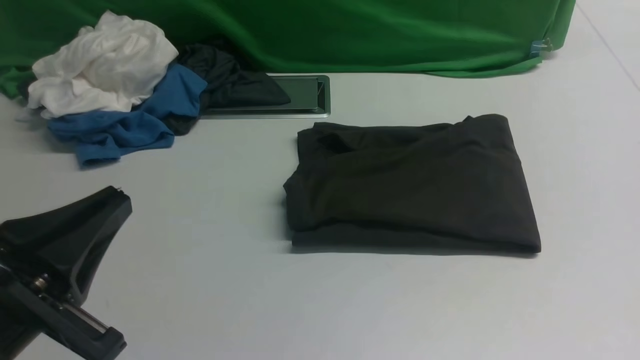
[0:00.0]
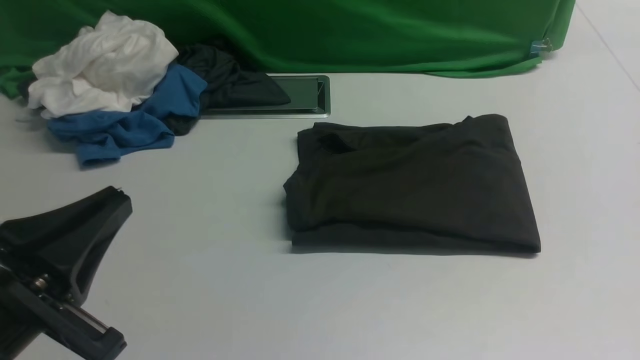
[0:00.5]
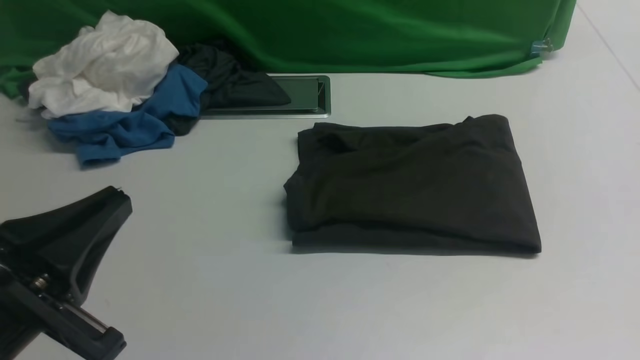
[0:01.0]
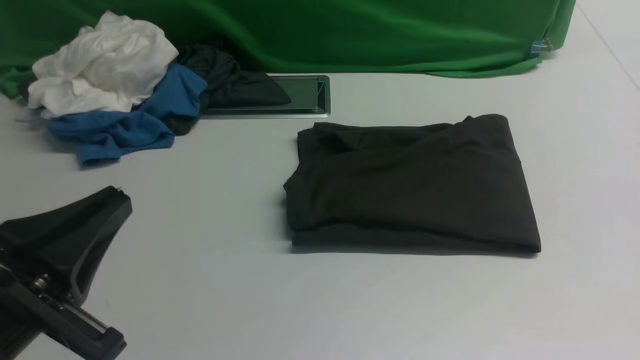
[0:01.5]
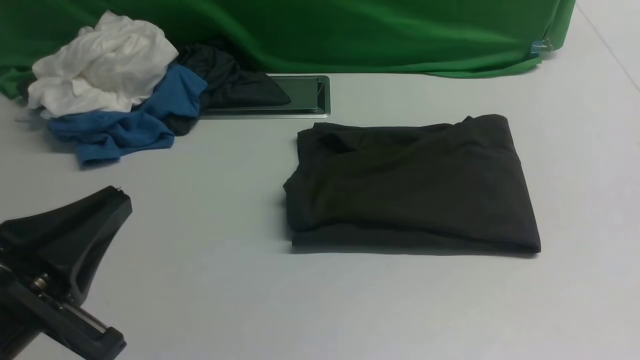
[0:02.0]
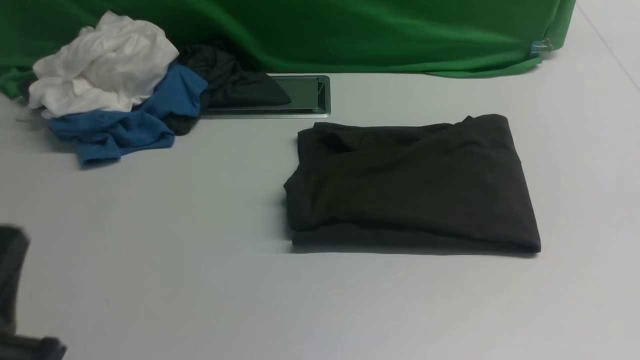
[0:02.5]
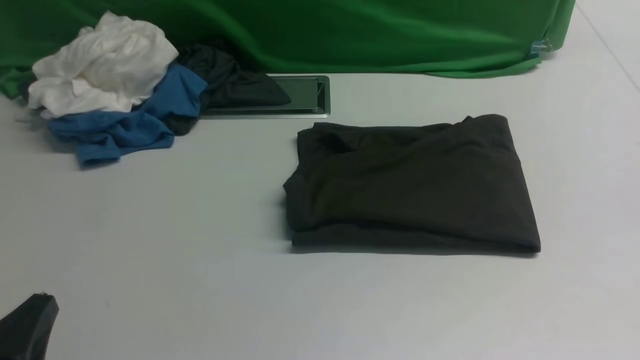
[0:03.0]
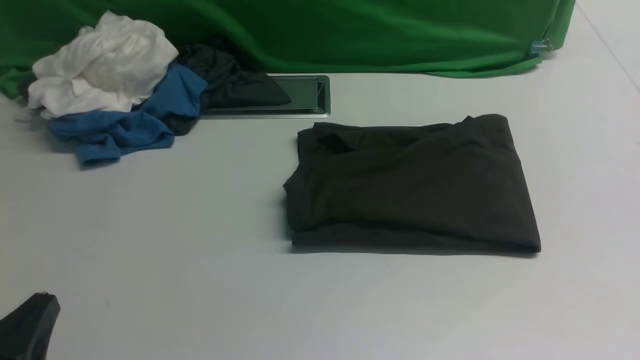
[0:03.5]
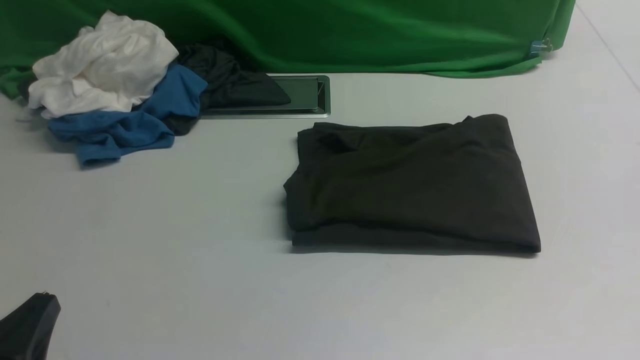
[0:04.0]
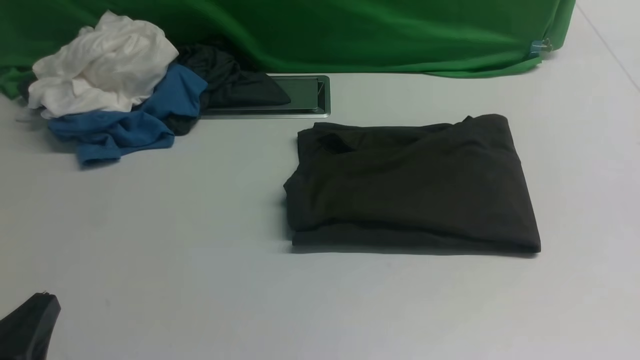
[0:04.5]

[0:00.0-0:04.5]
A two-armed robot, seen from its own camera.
0:02.0 to 0:04.5: The left gripper moves downward, approximately 10 cm.
